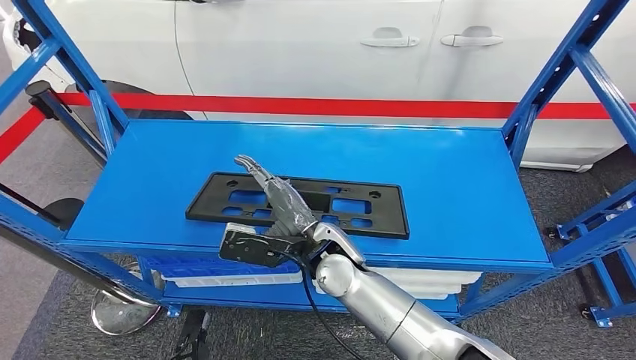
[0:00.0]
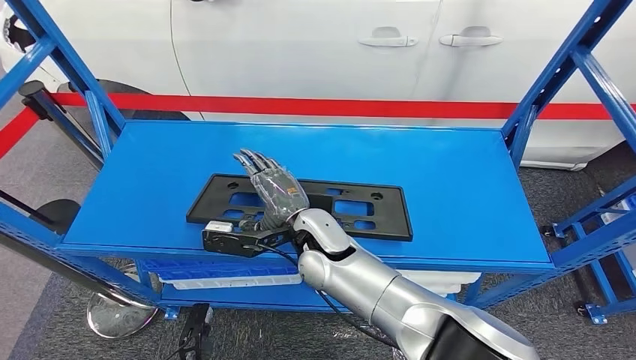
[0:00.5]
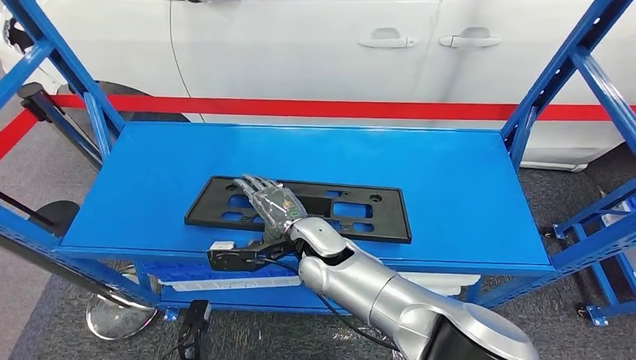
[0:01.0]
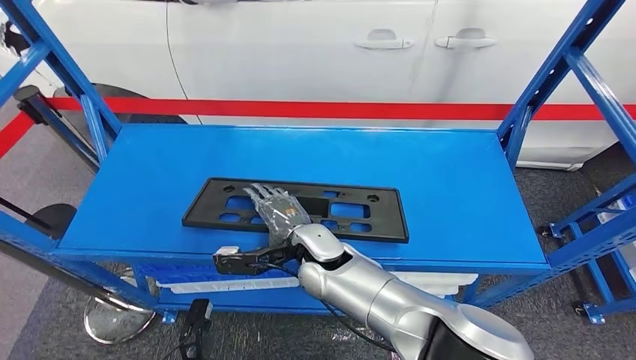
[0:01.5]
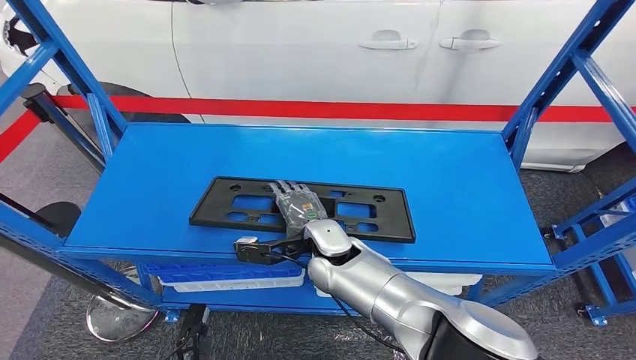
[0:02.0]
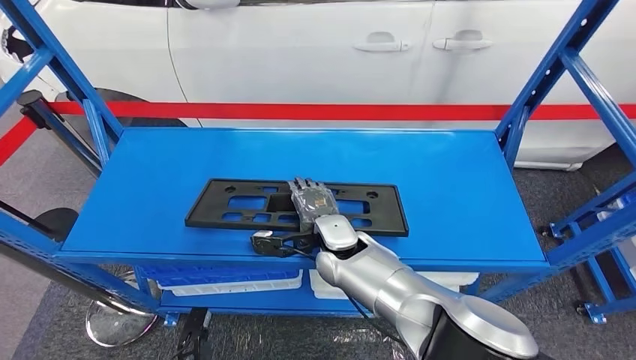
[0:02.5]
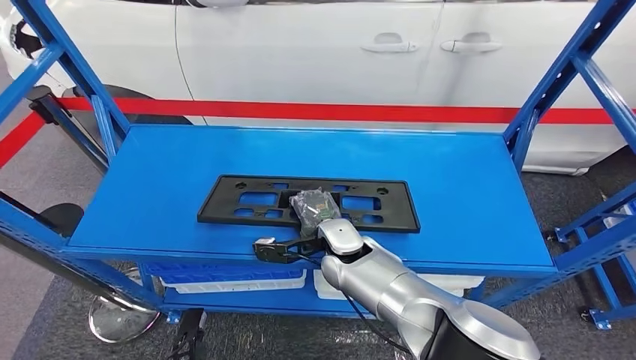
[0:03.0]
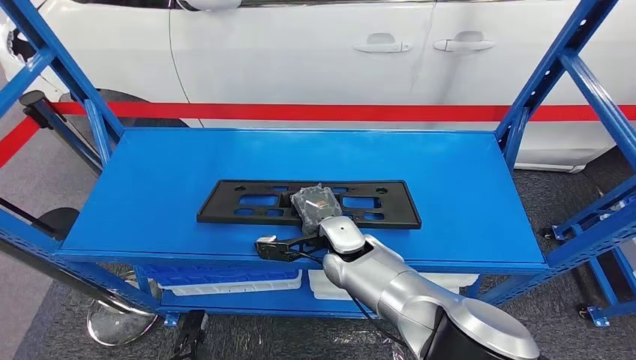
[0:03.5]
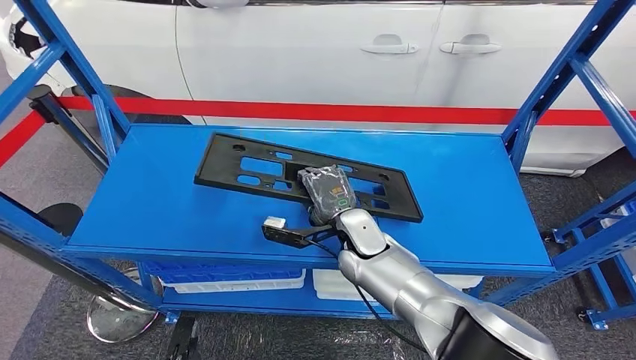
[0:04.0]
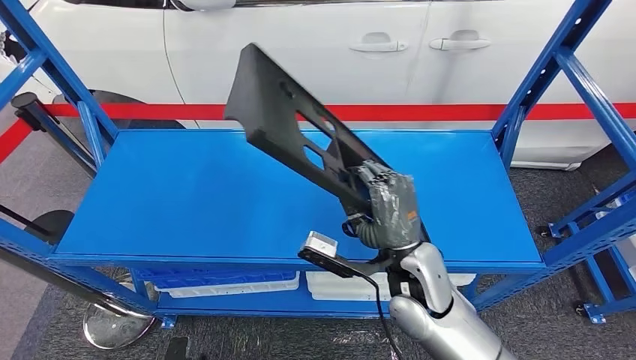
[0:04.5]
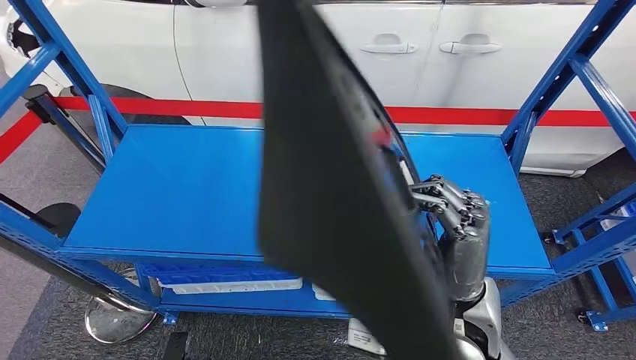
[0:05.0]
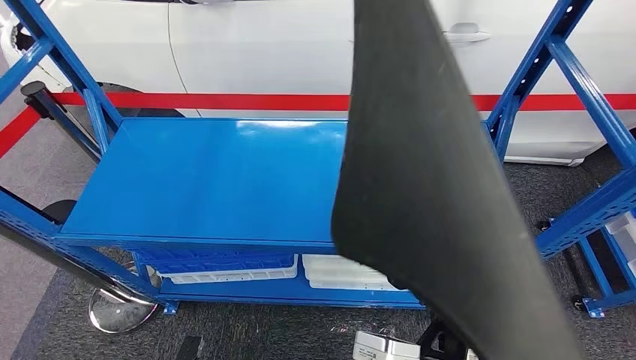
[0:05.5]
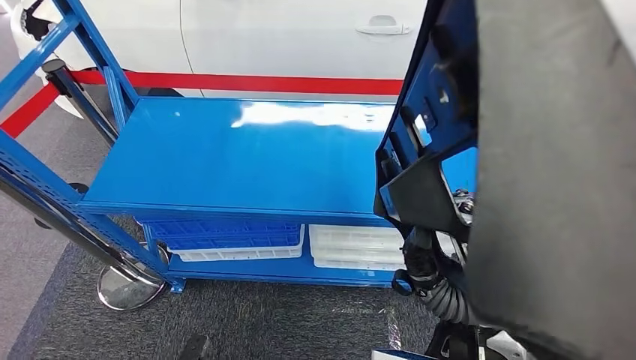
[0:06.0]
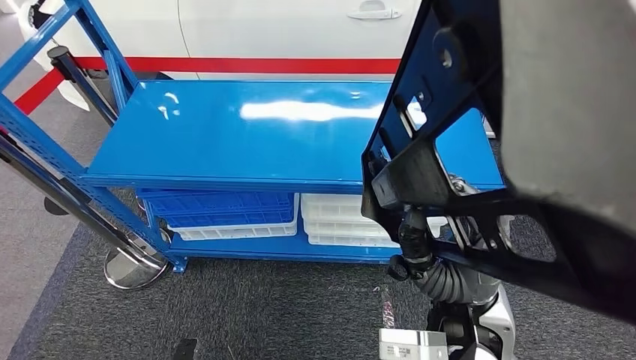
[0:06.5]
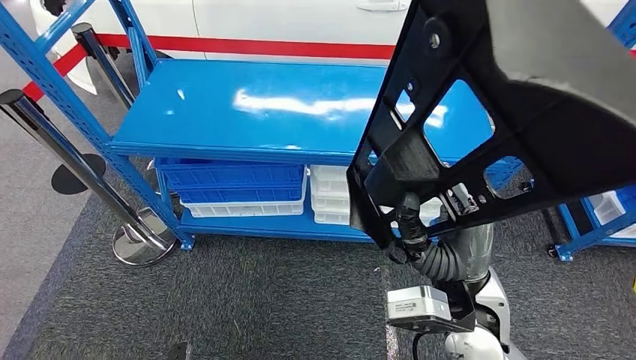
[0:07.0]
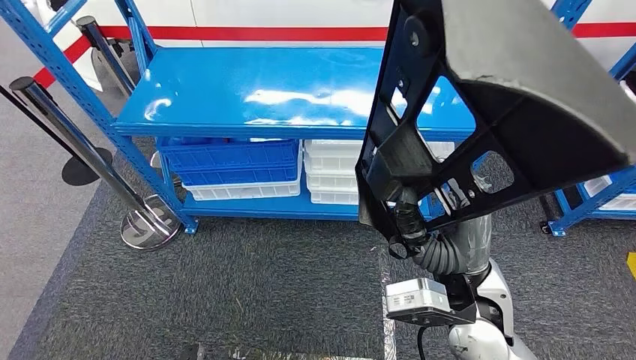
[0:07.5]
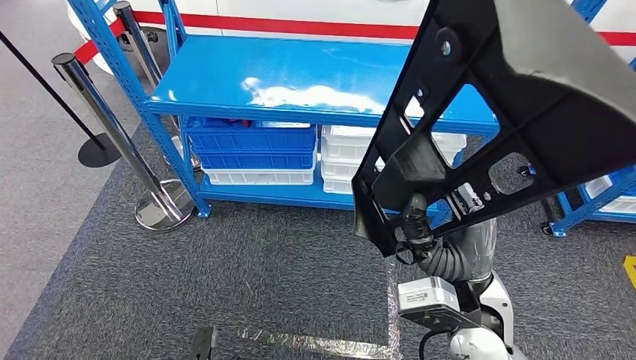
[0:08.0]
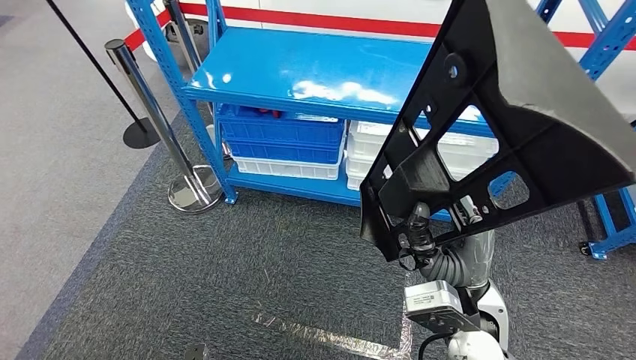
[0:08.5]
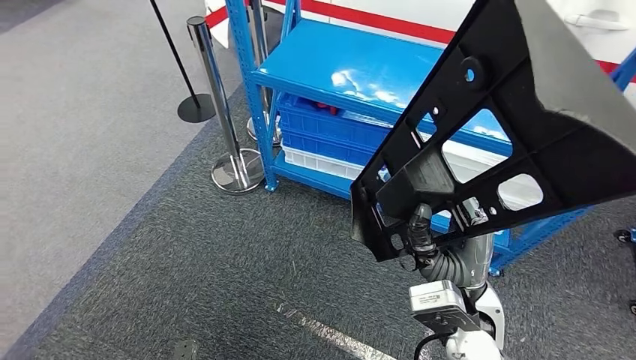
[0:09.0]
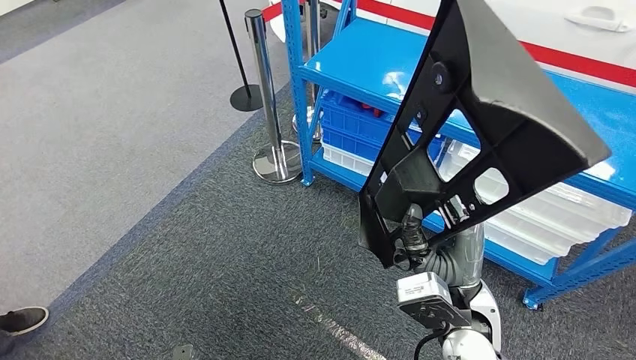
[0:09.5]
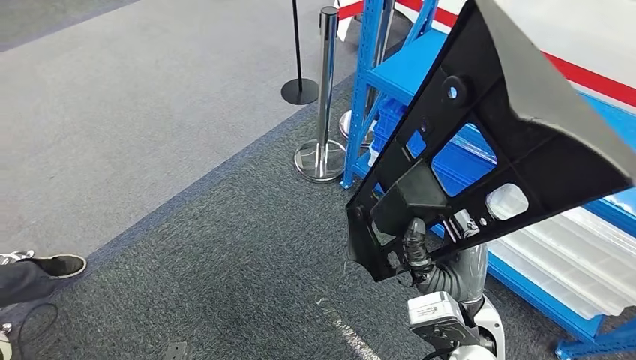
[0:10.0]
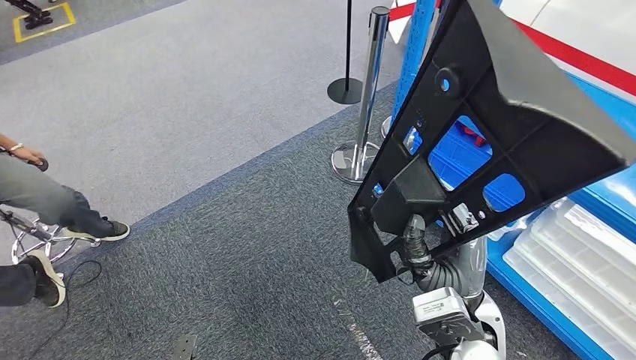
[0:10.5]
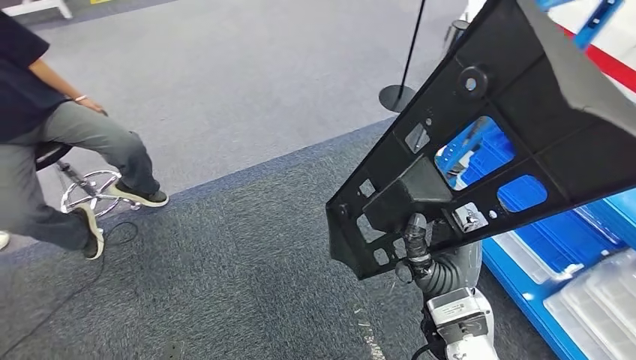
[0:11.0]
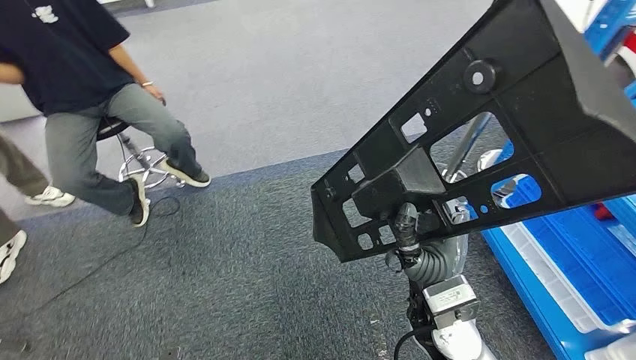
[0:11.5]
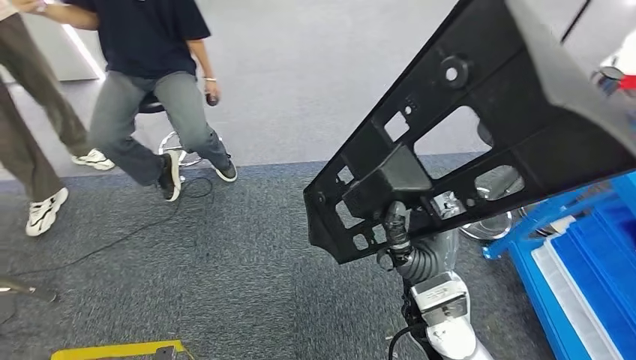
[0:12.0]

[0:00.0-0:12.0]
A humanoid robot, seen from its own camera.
Step, 0:00.0 to 0:04.0: Pick up the large material from the shelf.

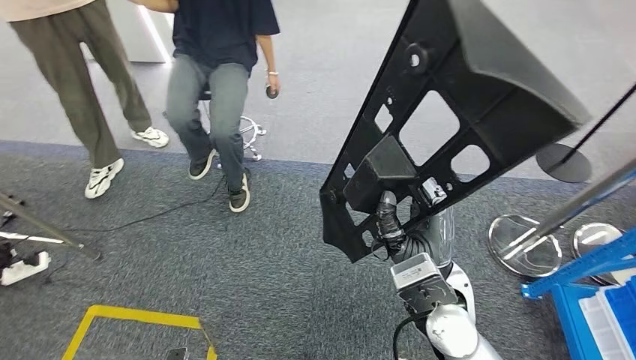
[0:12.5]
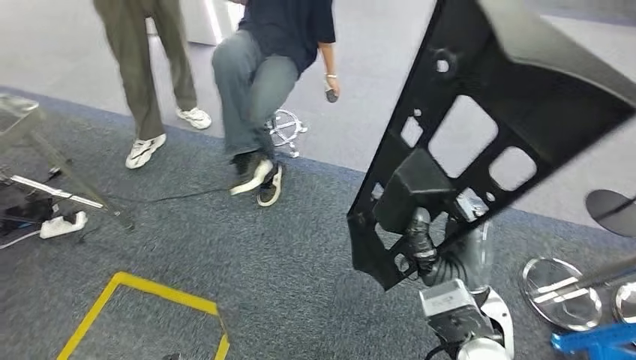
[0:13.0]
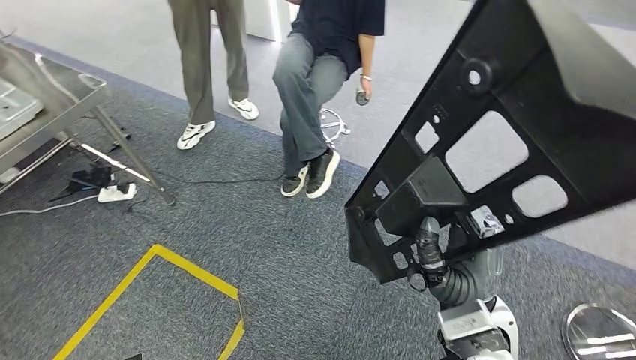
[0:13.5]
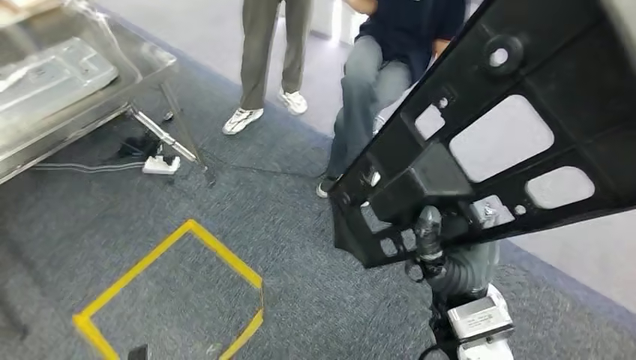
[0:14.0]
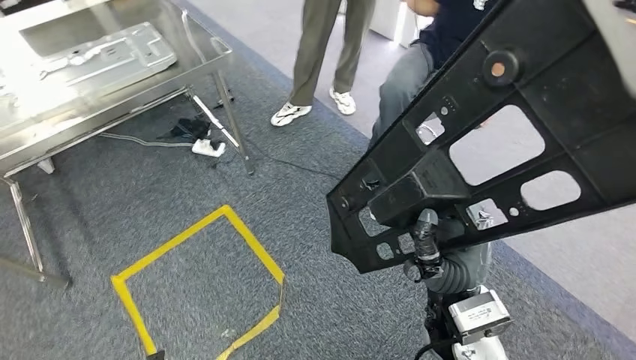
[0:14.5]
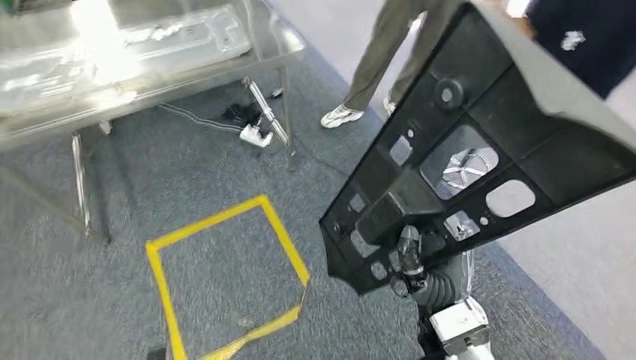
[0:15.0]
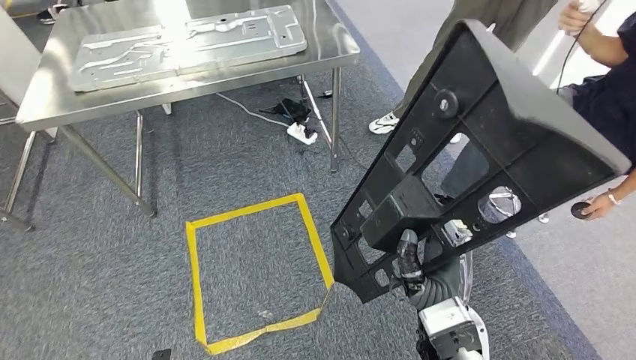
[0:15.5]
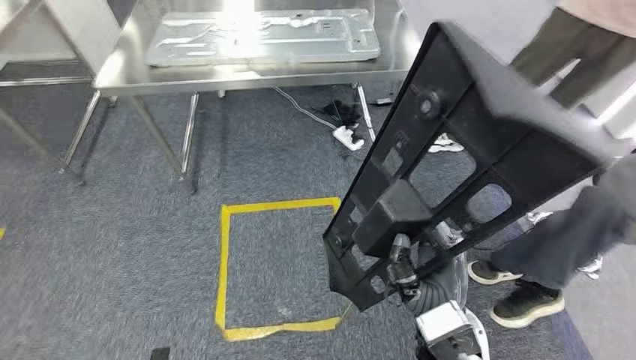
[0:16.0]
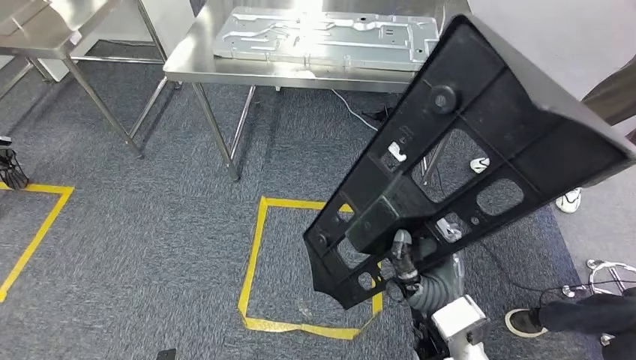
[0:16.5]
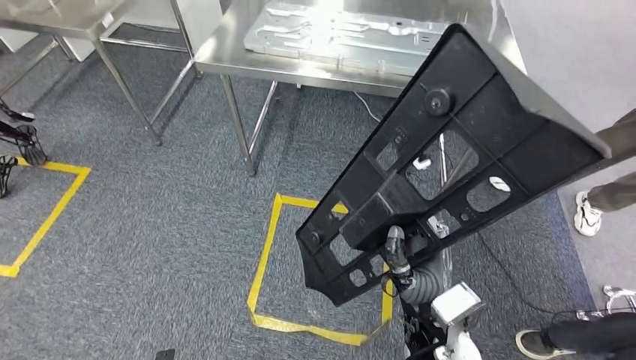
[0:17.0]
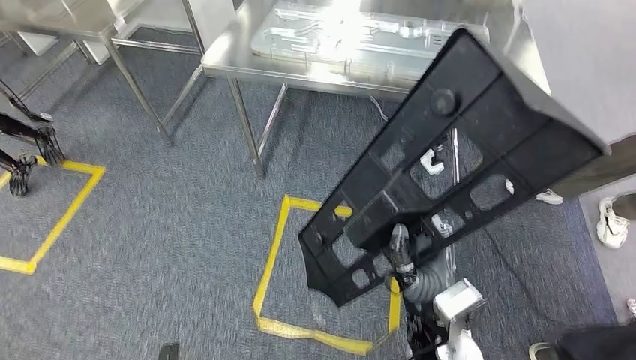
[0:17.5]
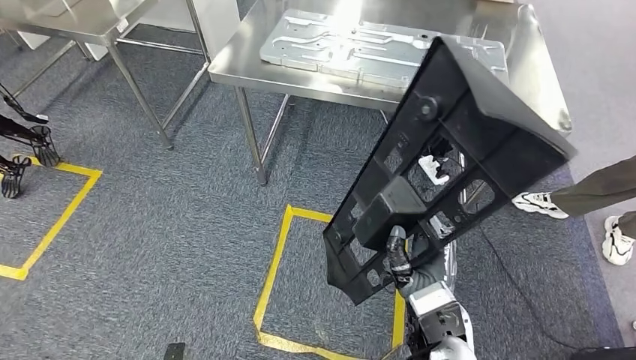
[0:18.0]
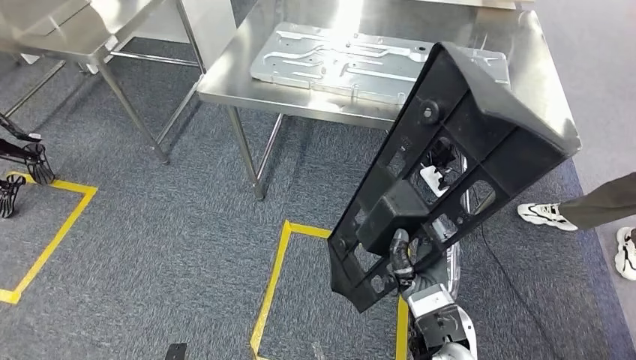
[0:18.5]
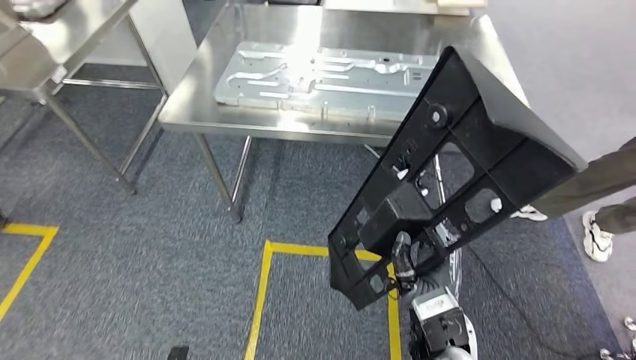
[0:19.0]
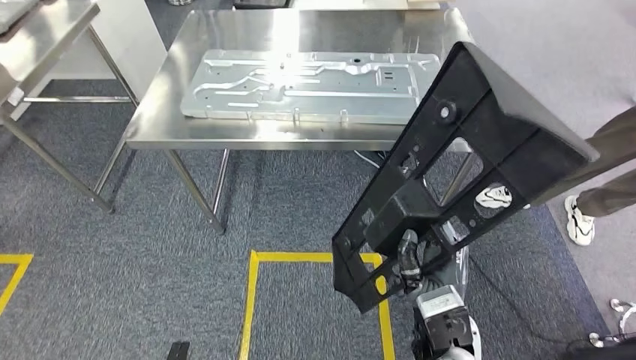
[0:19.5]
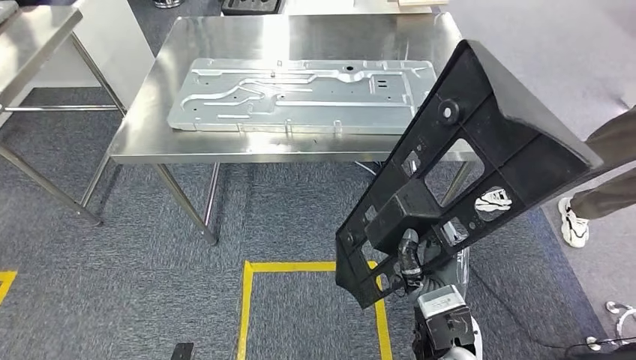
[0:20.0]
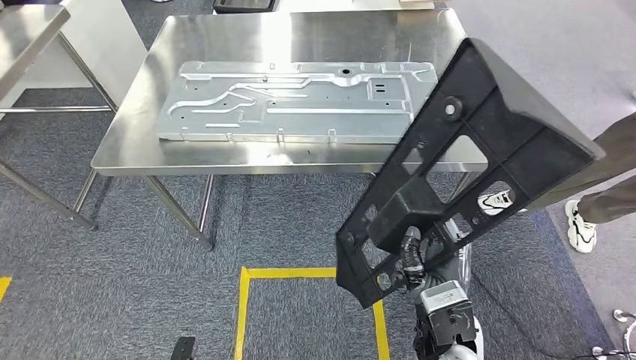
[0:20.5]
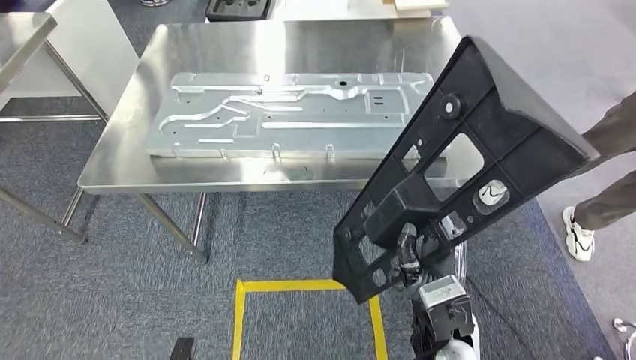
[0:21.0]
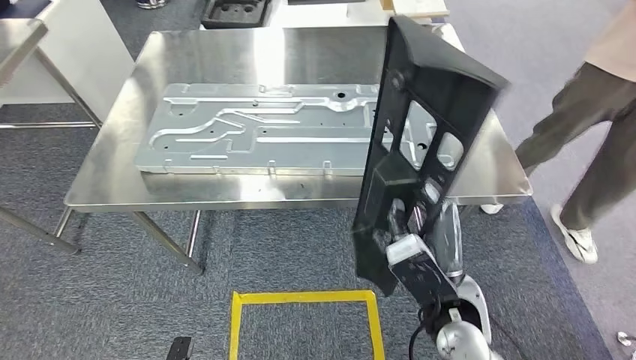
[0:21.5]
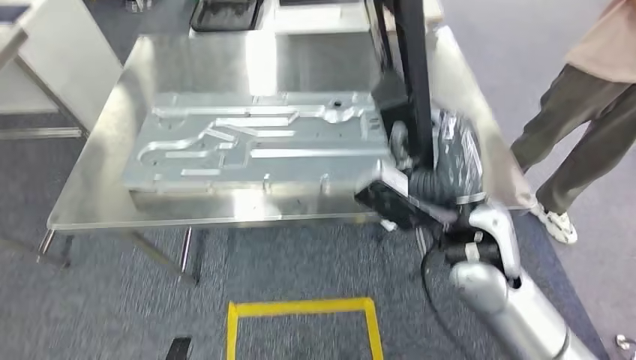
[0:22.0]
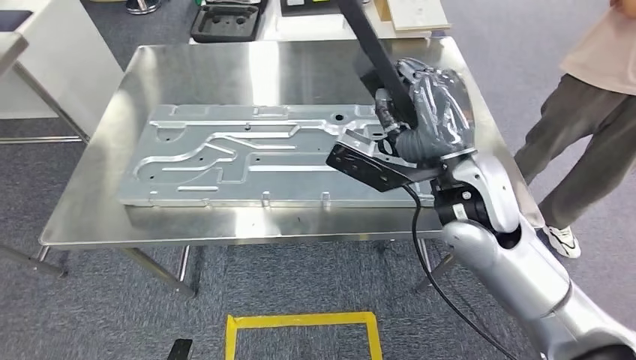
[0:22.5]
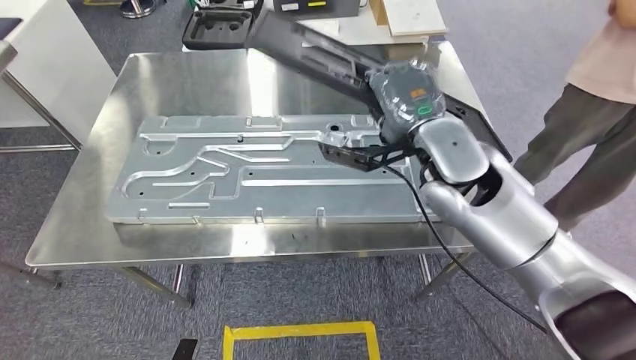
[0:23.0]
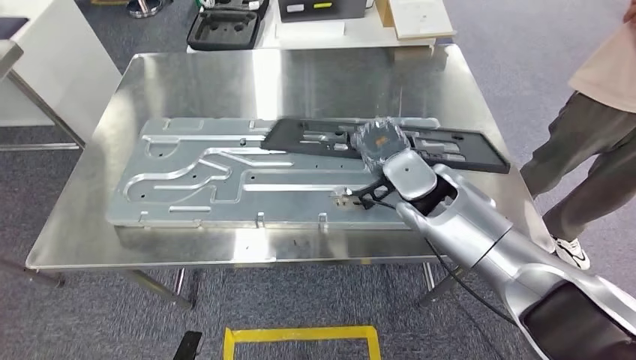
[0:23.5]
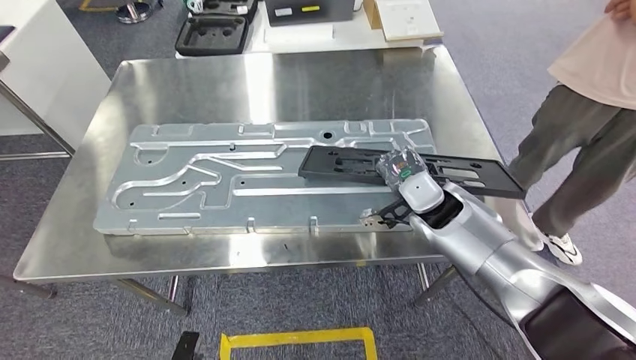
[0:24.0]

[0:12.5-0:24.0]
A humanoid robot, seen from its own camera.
Step, 0:12.5 to 0:17.5: Move the large material to the workbench.
